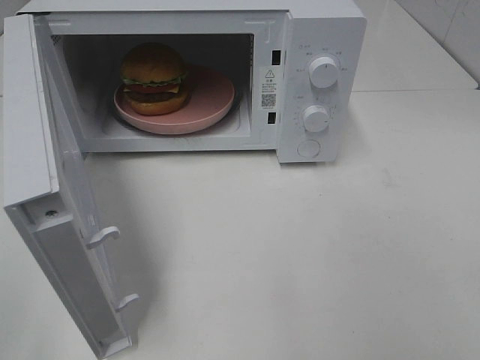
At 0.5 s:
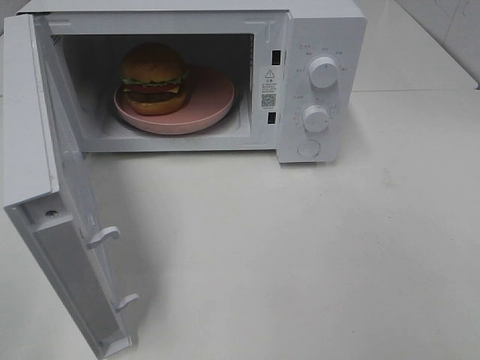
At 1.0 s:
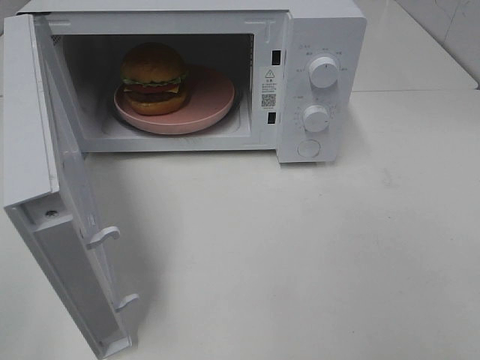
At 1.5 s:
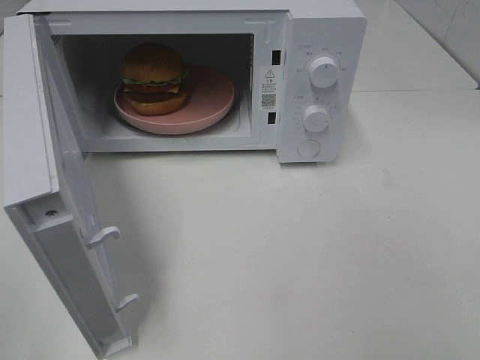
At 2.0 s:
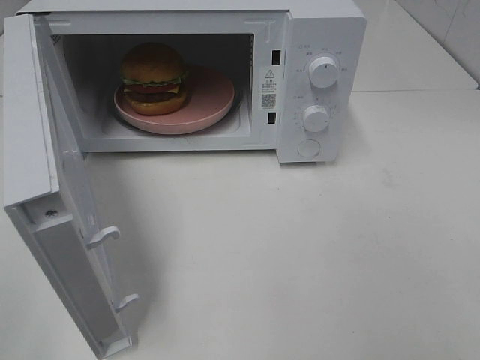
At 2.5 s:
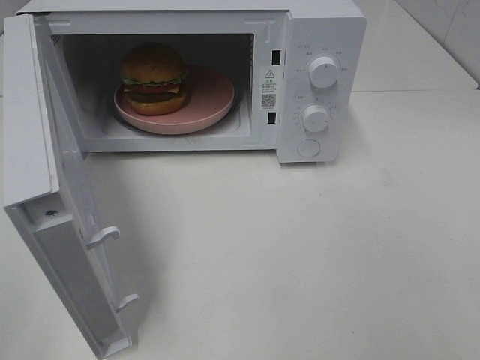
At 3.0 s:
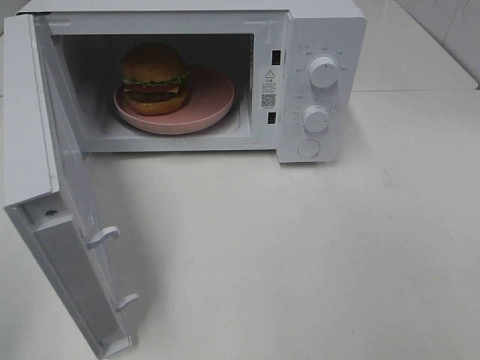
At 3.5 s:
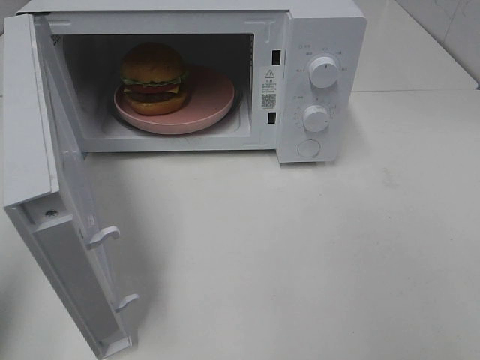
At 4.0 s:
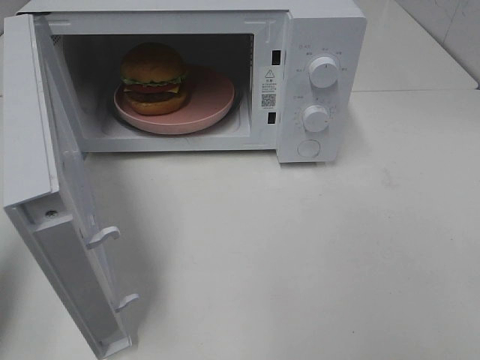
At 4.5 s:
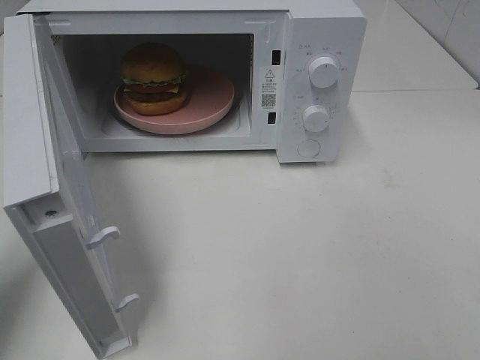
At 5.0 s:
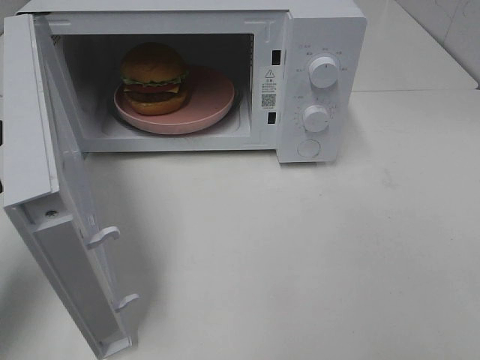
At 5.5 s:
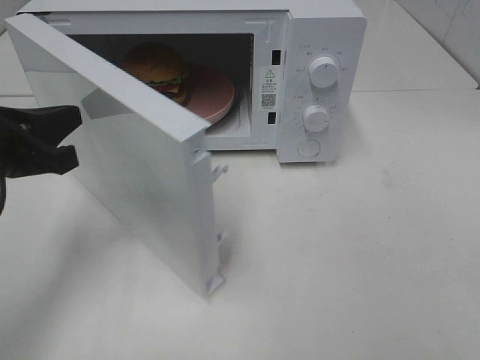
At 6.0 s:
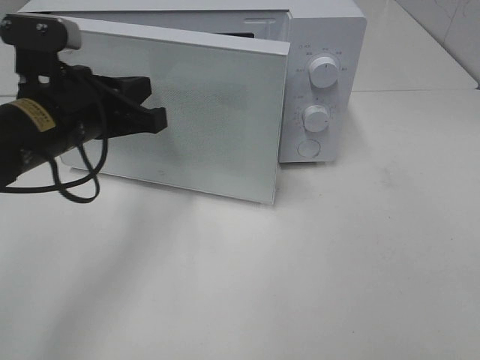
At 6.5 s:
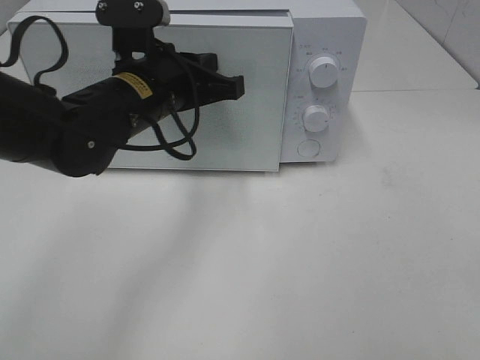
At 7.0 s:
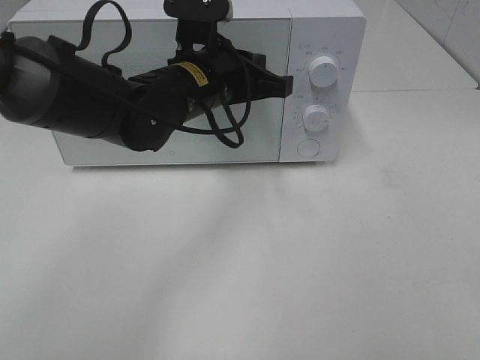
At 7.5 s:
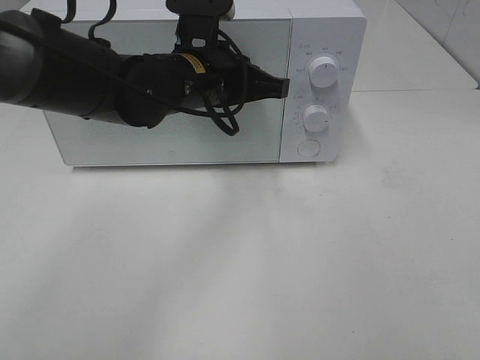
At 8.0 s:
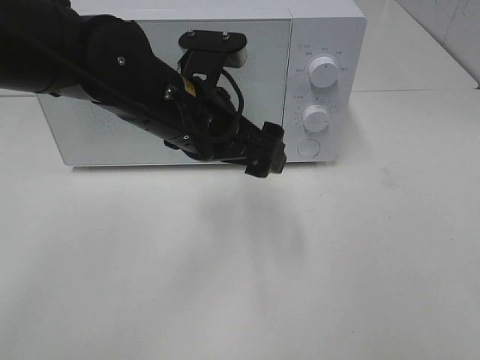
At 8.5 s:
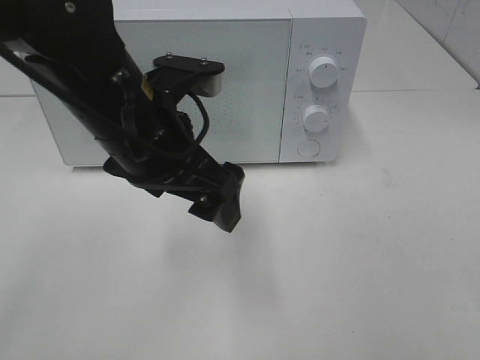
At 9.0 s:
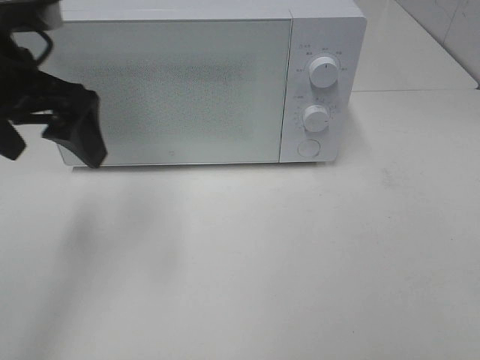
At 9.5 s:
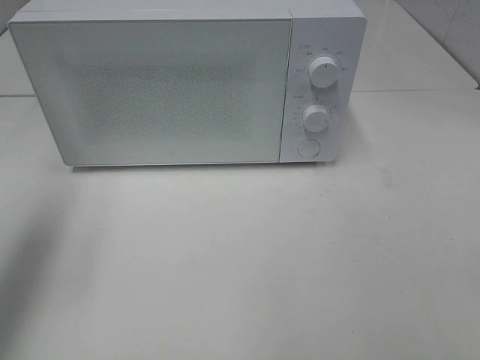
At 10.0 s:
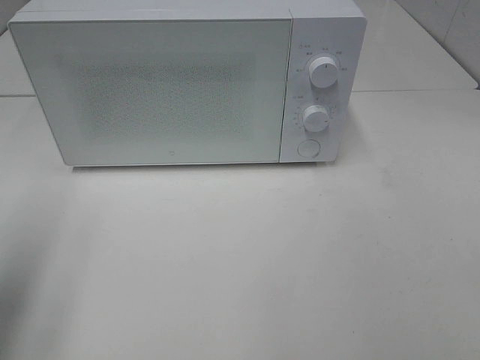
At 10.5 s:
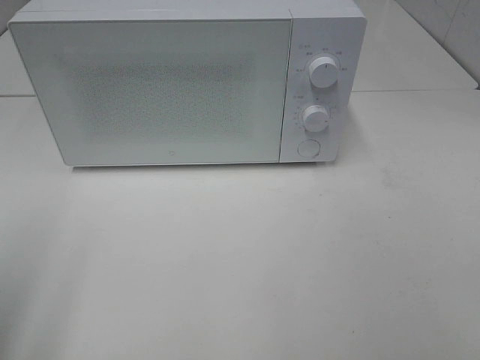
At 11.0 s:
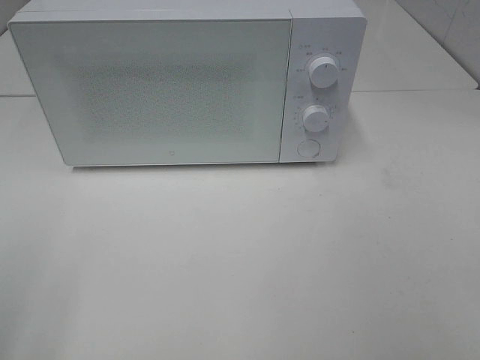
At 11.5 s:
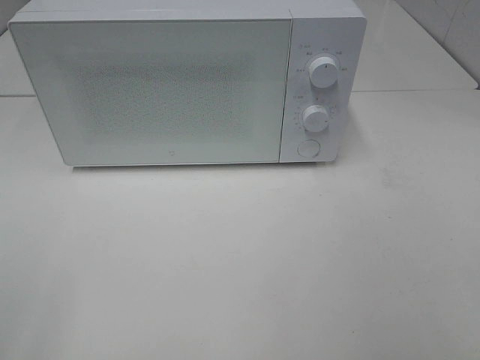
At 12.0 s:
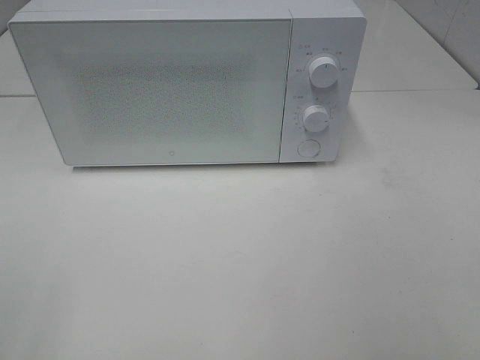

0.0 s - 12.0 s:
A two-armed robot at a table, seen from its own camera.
Task of the whole recording: Heat the burger.
Step, 0.0 s - 7.5 s: Left hand: close the microwave door.
2.0 s - 4.0 s: The left gripper shifts about 15 cm forward, and closes.
4.0 s - 6.0 s: The left gripper heads to the right and forward, covering some 20 cm.
6.0 s - 8.0 s: The left gripper is displaced to the right by about 10 cm, and opens up.
8.0 s - 10.0 s: The left gripper shifts approximately 30 cm to the left and backward.
10.0 s - 12.0 s: The left gripper goes roughly 15 cm backward.

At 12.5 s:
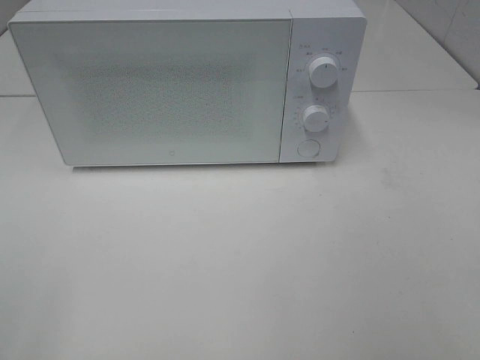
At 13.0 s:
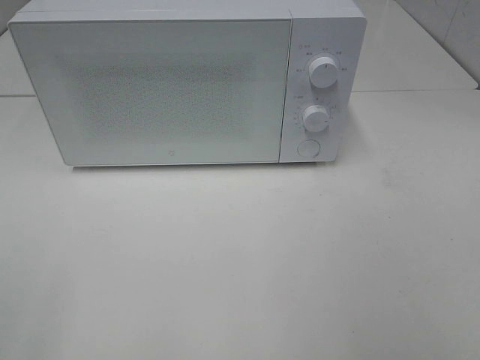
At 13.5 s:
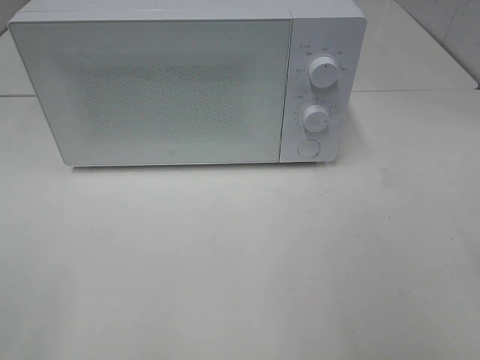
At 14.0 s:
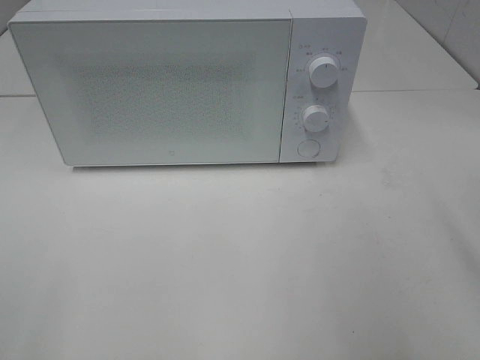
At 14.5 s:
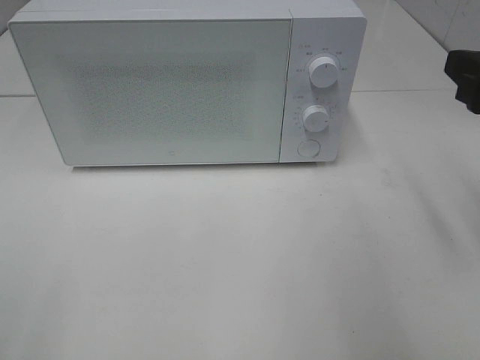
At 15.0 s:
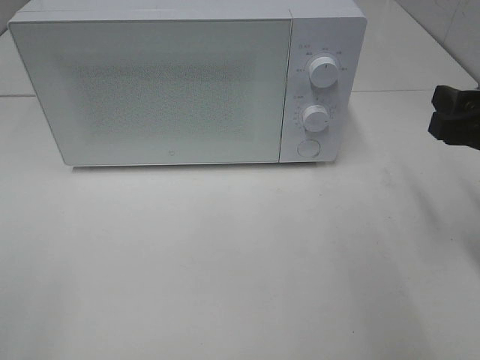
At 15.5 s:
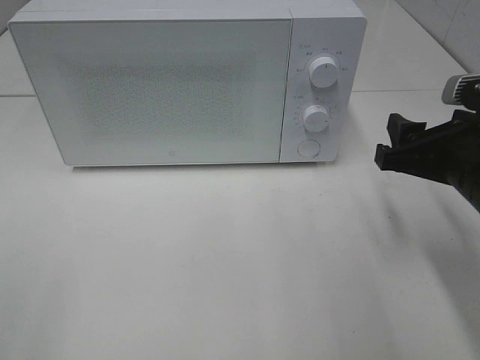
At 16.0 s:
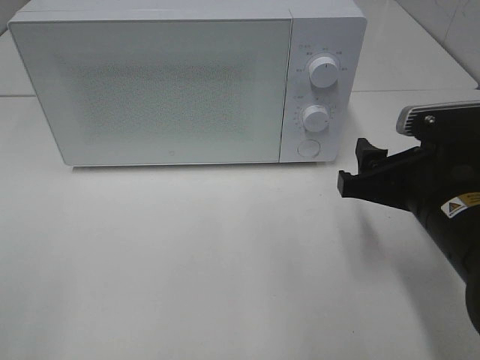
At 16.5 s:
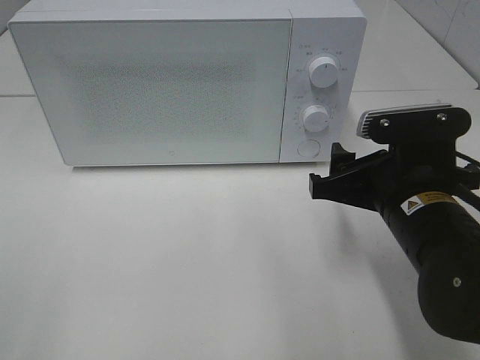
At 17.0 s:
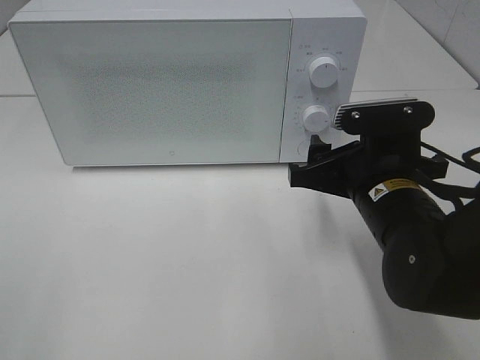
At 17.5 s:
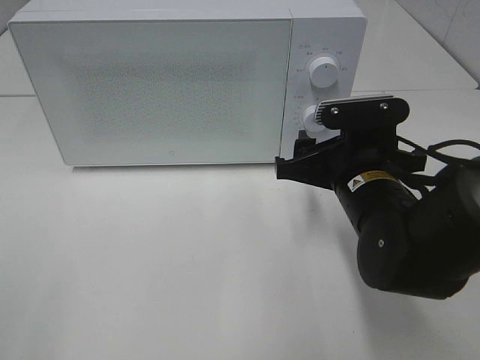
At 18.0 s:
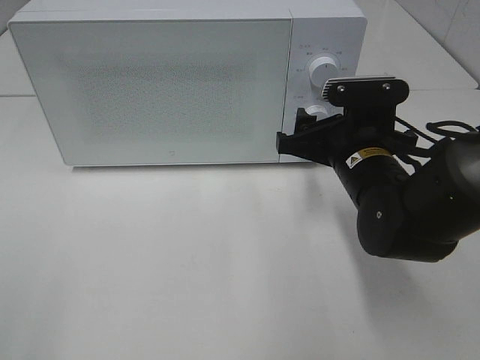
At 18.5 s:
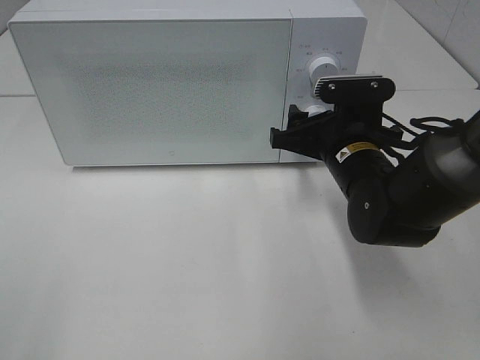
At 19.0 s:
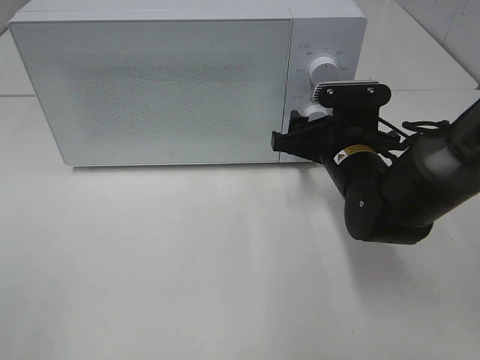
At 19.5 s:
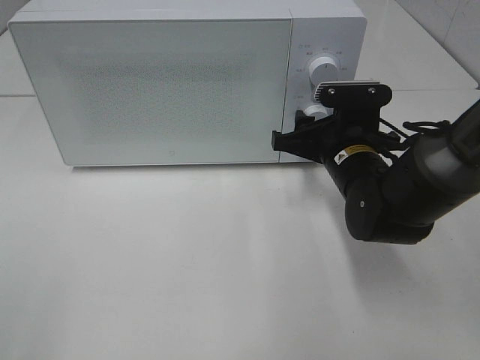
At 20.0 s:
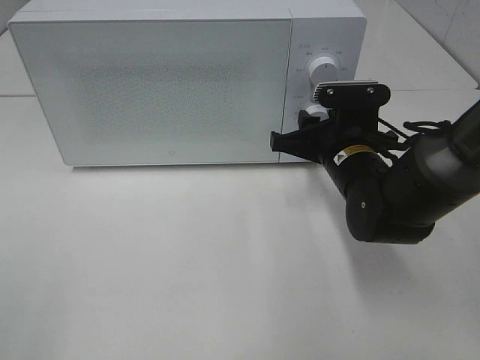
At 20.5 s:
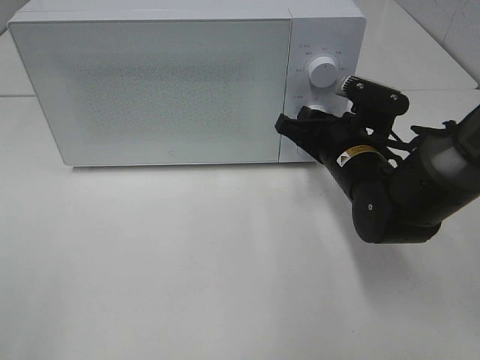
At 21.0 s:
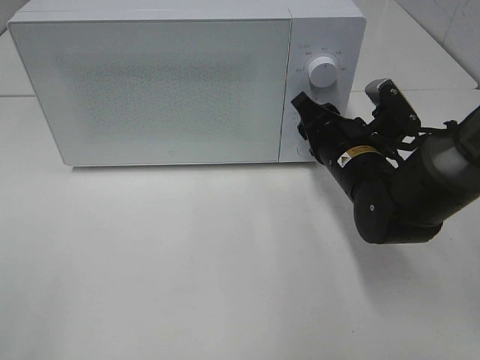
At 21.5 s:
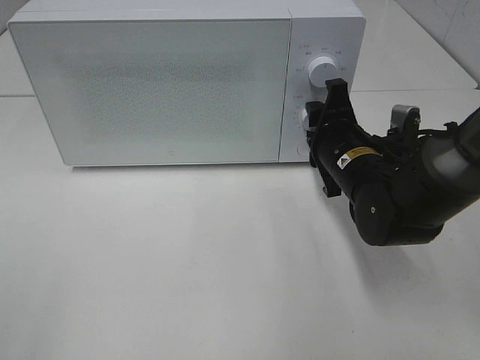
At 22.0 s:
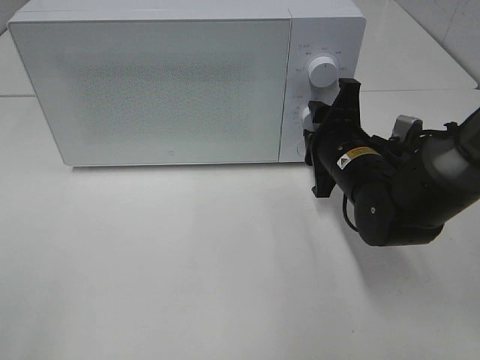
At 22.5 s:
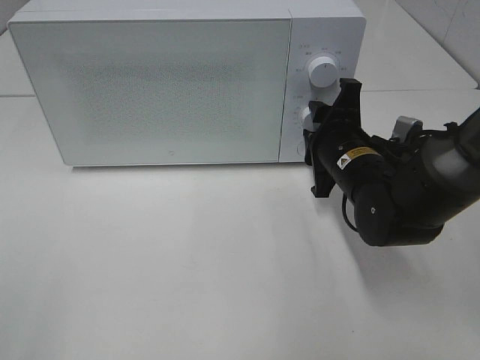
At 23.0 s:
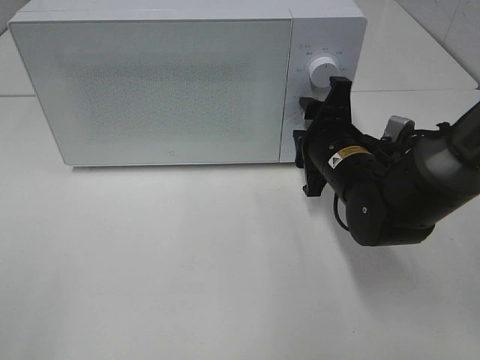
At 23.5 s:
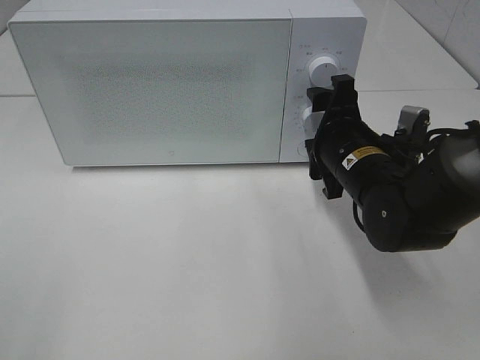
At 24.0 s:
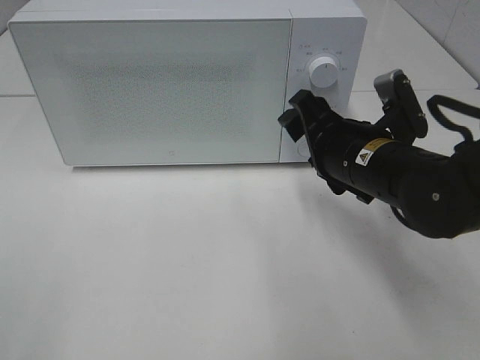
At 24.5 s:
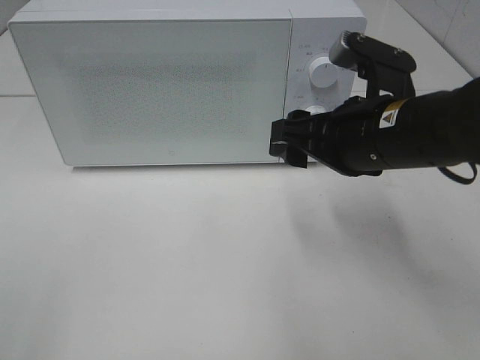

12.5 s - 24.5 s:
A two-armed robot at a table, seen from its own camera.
Task of the whole recording: Heat the burger.
Step, 12.5 s - 23.0 s: Right hand: twist timer button.
12.5 s - 14.5 s: The right gripper heads forward, covering about 20 cm.
14.5 s - 16.5 s: The right gripper travels downward and to the left by approximately 15 cm.
16.5 s - 18.5 s: The right gripper travels forward by roughly 10 cm.
22.5 s - 24.5 s: The right gripper moves upward and backward, some 10 cm, and opens up.

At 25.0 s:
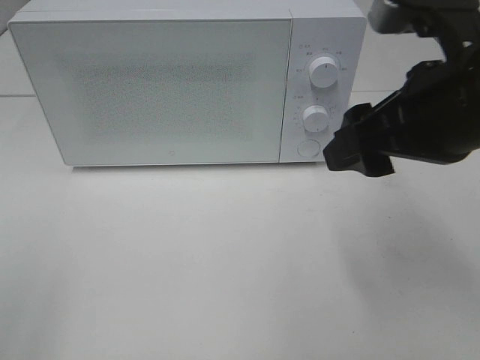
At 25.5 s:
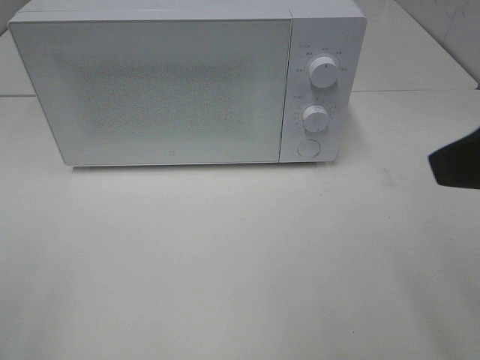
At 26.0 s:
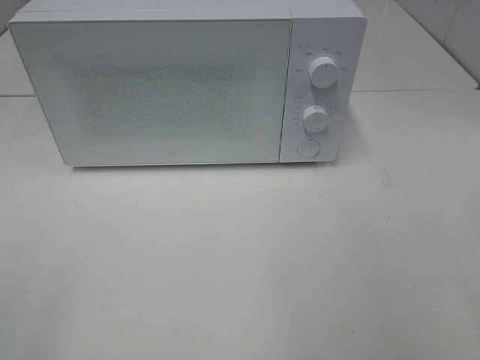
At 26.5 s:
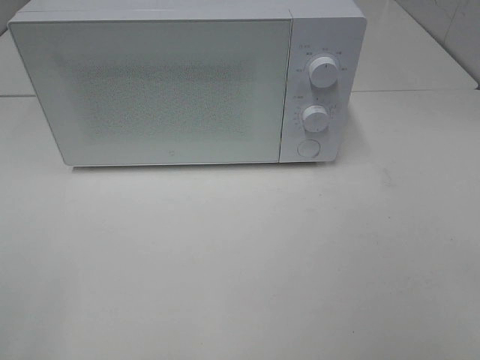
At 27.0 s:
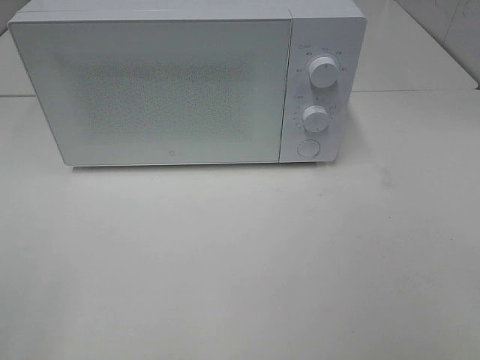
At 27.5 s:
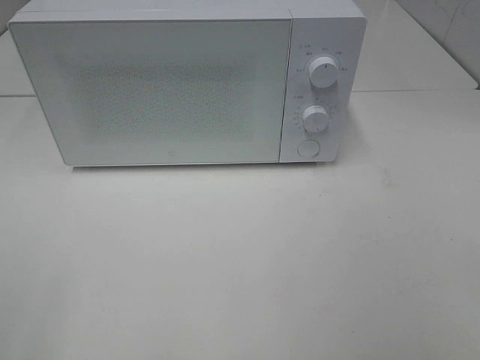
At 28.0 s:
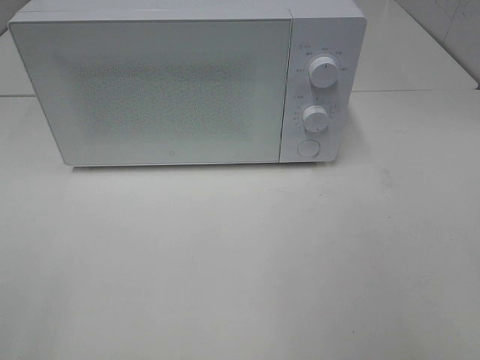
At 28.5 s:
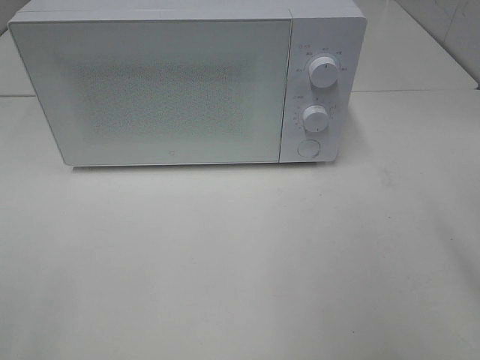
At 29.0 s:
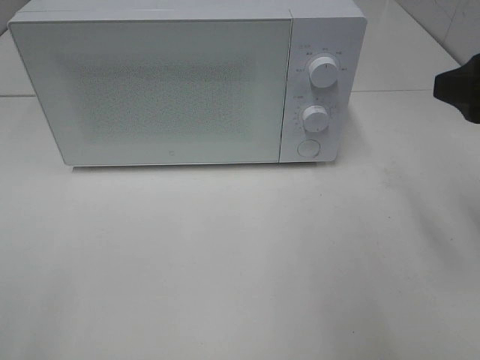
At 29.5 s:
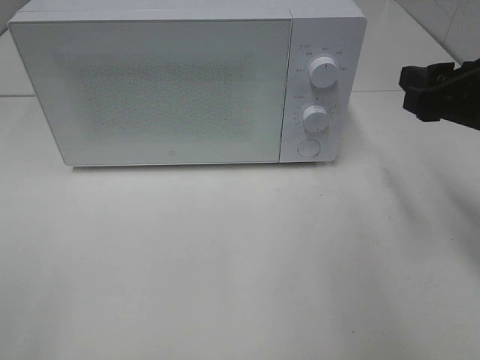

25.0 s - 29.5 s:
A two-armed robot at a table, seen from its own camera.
Task of the whole recording: Heat the burger.
25.0 s - 27.0 s: The right gripper shifts approximately 25 cm backward and to the right.
27.0 s - 29.5 s: The right gripper shifts approximately 25 cm forward.
